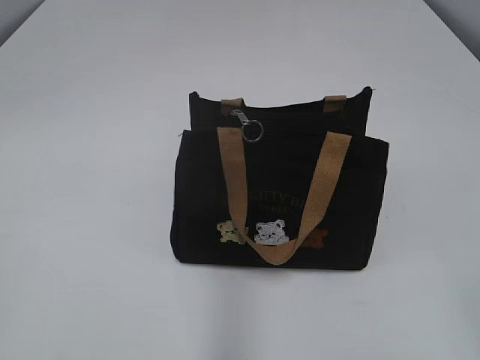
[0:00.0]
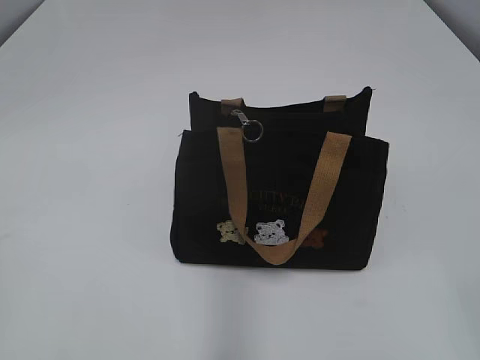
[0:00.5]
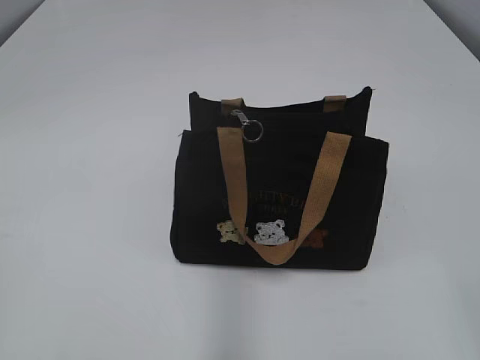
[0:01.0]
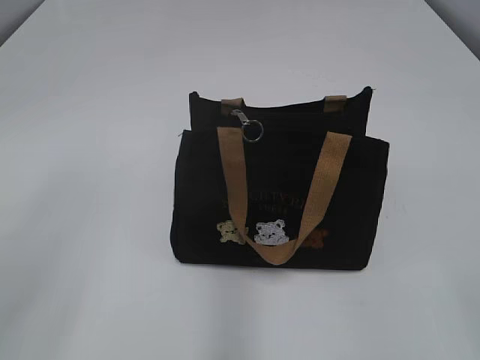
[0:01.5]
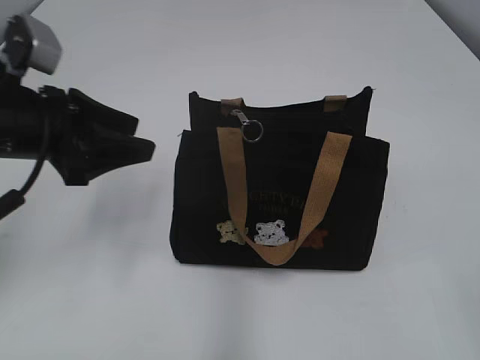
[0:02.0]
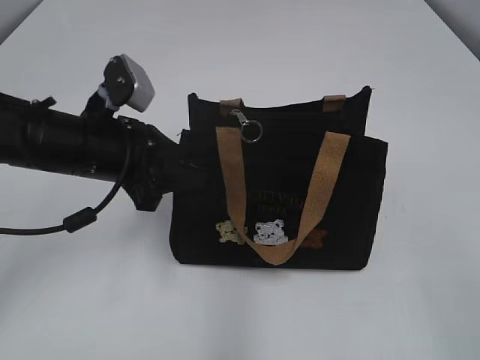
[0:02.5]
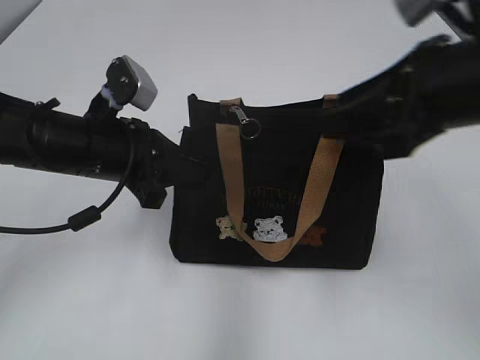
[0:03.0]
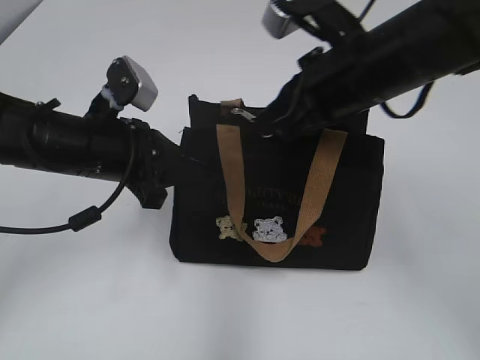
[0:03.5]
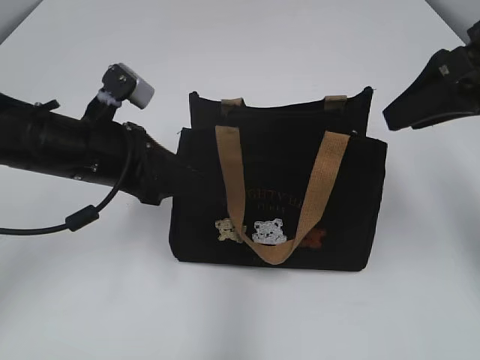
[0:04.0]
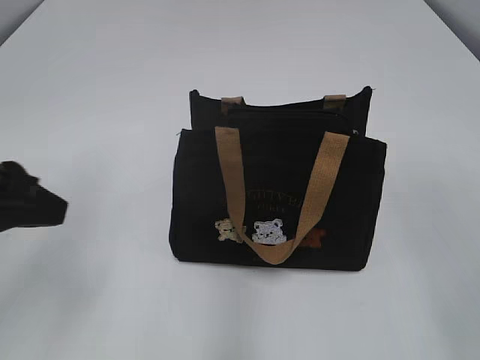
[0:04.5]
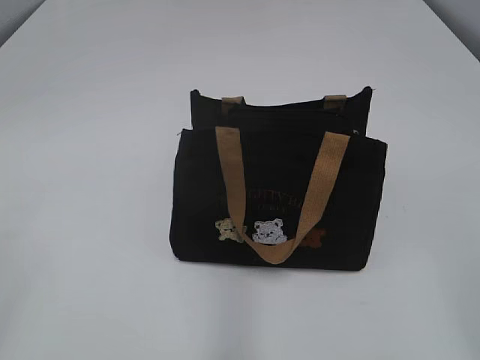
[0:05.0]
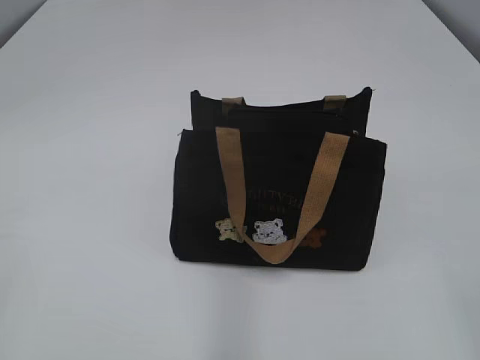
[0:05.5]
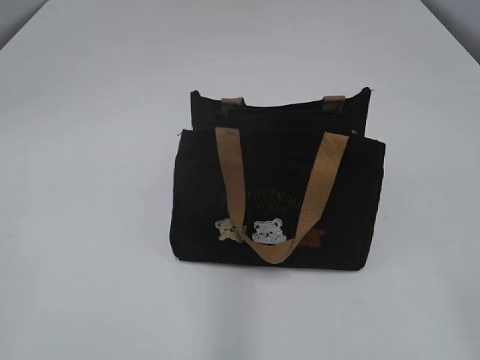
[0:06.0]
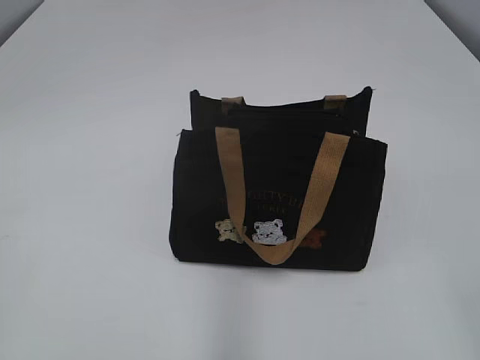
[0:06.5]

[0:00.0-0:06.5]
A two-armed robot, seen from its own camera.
Step, 0:00.0 to 0:03.5: Pull open the zipper with your right hand.
0:02.0 to 0:04.5: The right gripper travels forward by about 25 cm, and closes and opens again. Meanwhile the left gripper travels downward by roughly 5 cm, and closes up.
0:04.5 to 0:06.5: The left gripper is displaced backward and to the left by some 30 cm.

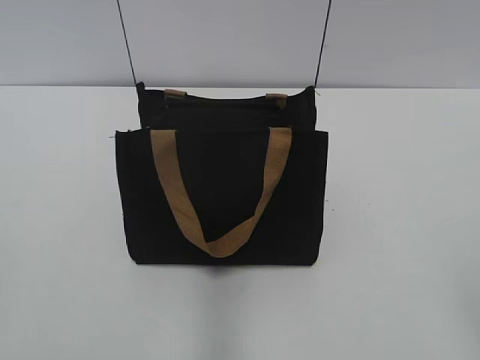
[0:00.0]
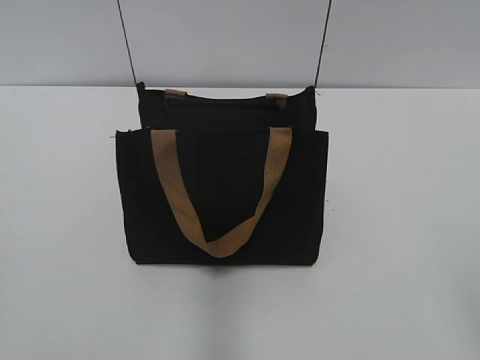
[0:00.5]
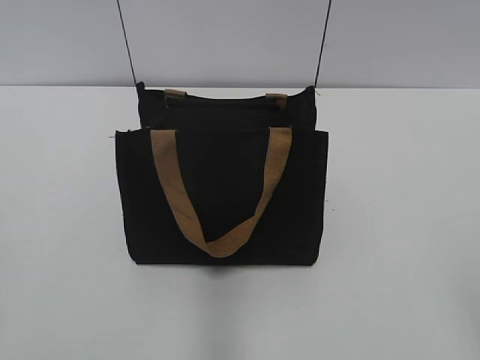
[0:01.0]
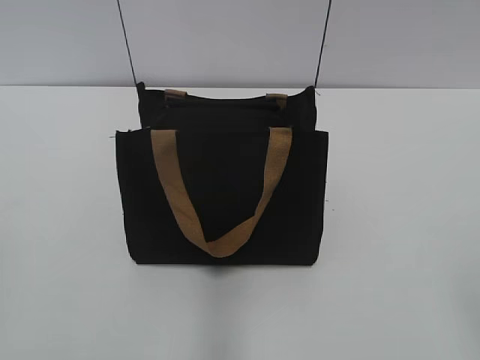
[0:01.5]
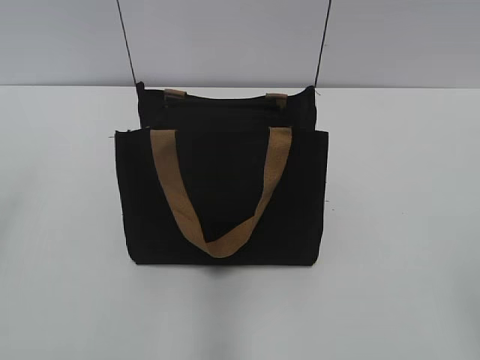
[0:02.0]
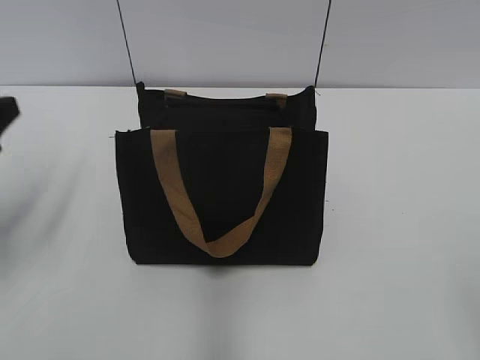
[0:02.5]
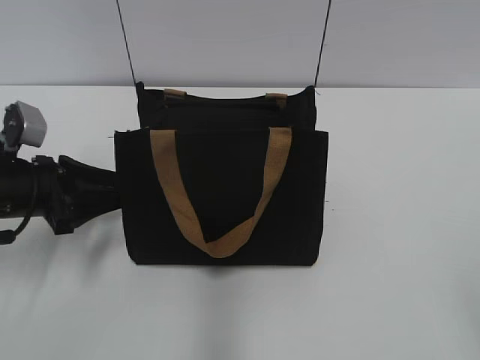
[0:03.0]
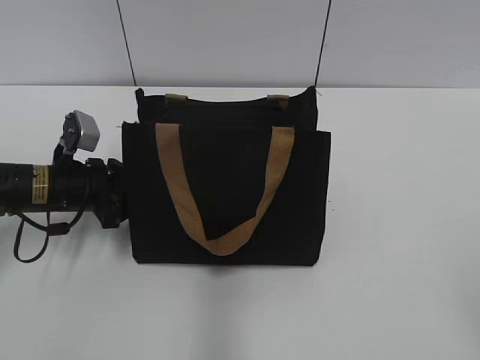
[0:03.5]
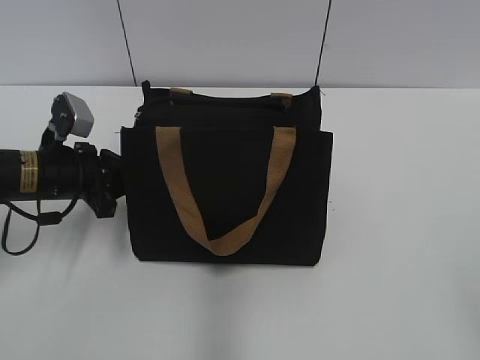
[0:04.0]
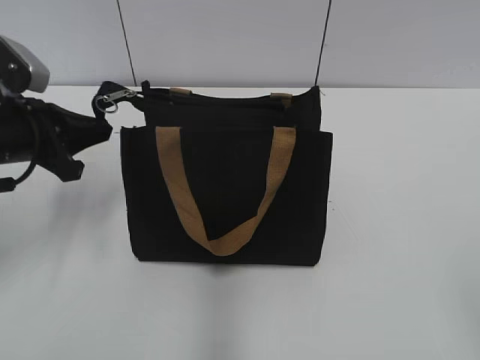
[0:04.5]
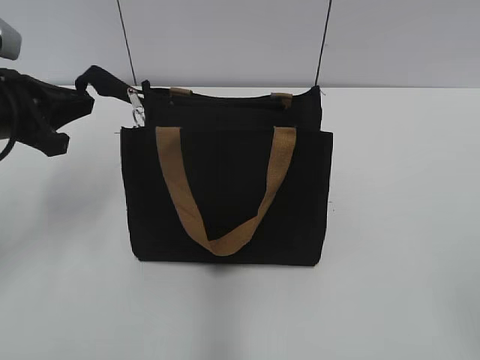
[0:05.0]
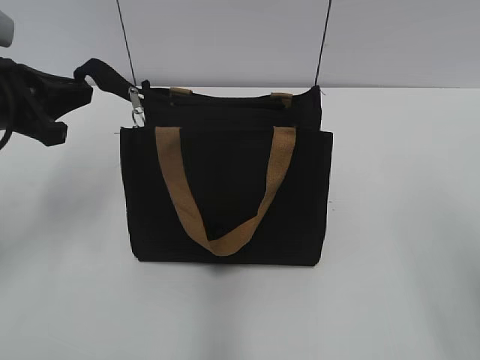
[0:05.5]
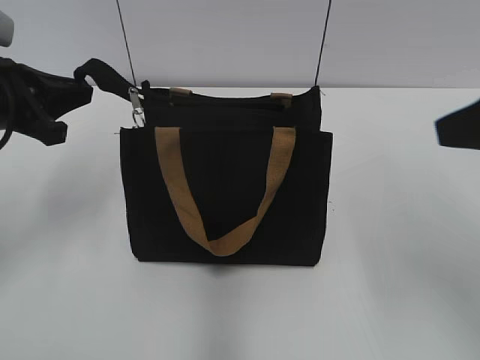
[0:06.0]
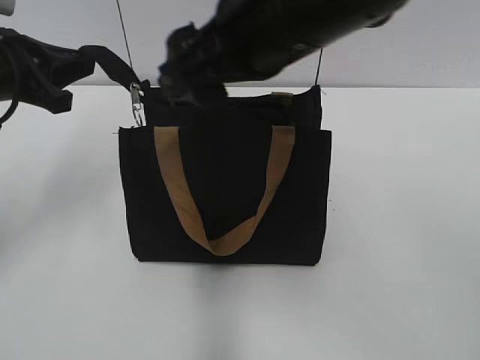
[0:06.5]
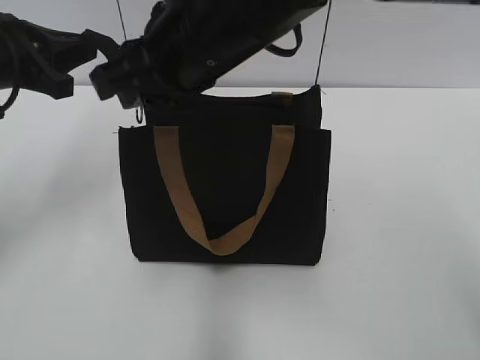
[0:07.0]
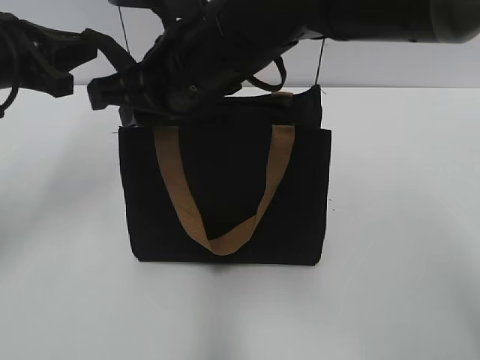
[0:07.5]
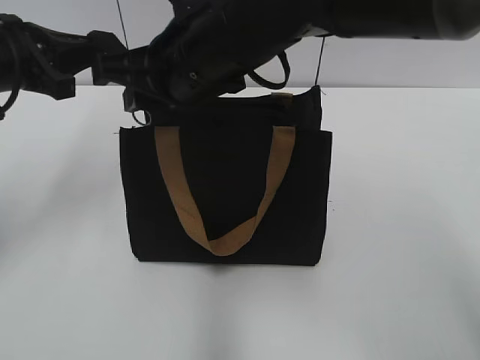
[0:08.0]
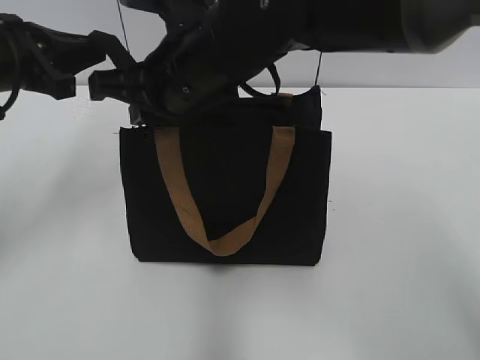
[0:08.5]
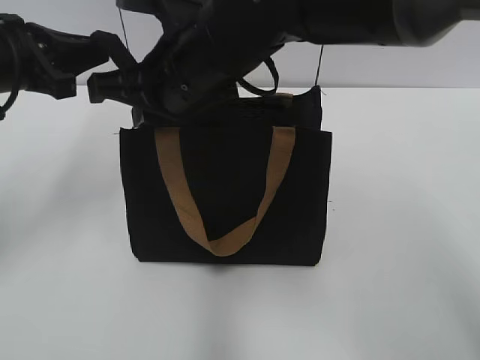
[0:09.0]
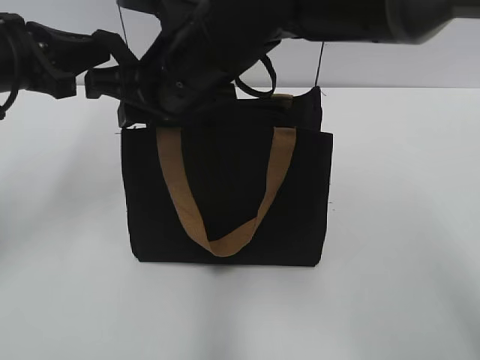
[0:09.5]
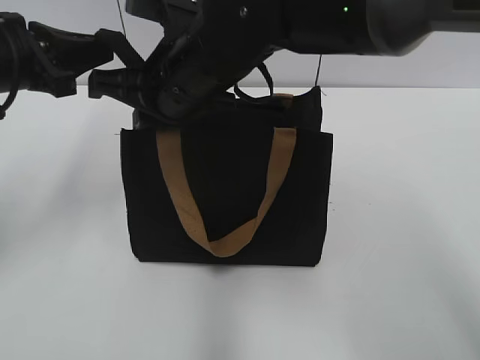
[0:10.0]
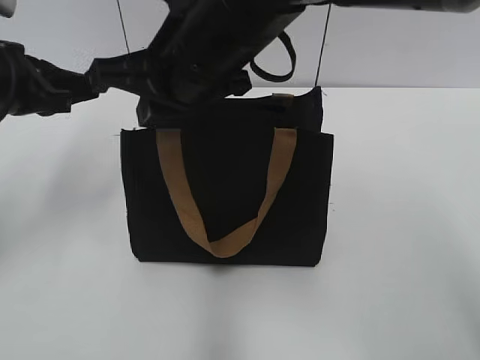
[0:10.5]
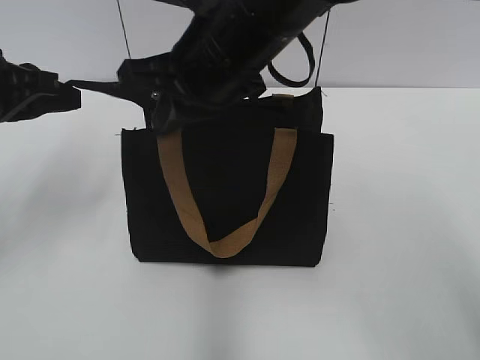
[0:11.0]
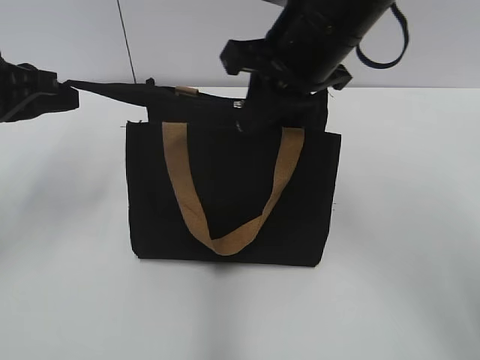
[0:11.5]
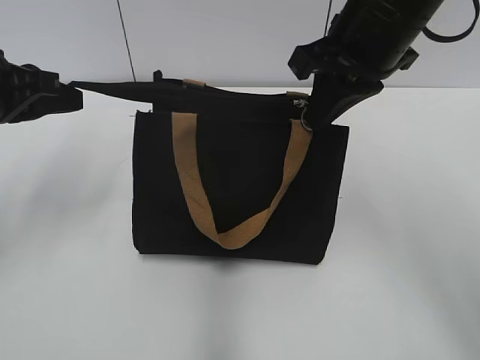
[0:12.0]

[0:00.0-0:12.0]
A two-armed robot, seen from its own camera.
0:02.0 to 0:04.0: The left gripper heads forward, downward and to the right, covering about 35 cm, and closes.
0:04.0 to 0:06.0: The left gripper heads upward, covering some 10 cm, while the right gripper is displaced forward by some 20 cm.
0:06.0 to 0:08.0: The right gripper travels to the left and forward by roughly 30 cm, and closes its fingers.
0:08.0 to 0:10.0: The right gripper closes.
0:10.0 to 0:12.0: The right gripper shifts about 15 cm to the right.

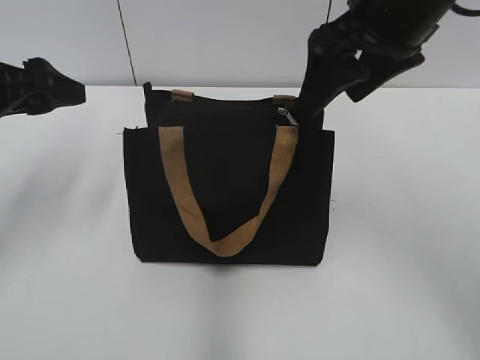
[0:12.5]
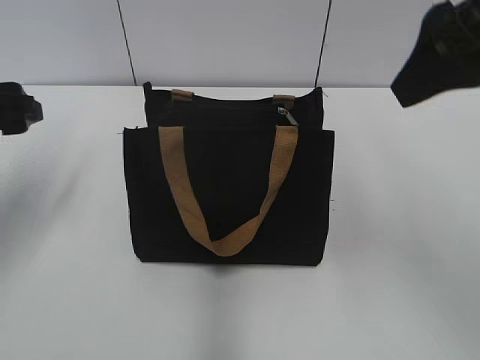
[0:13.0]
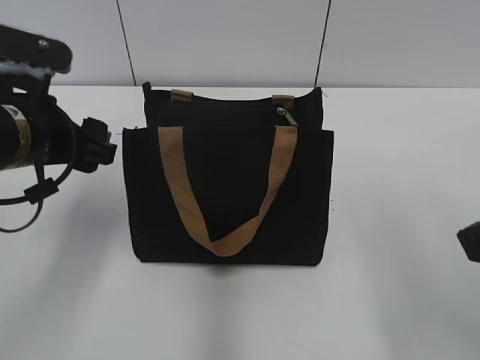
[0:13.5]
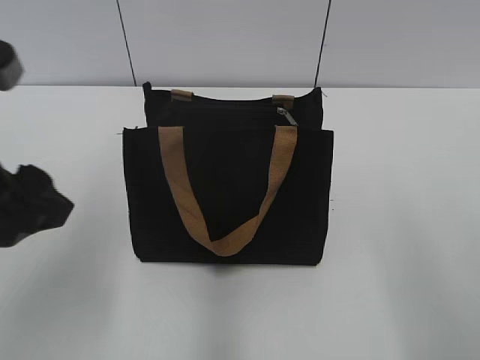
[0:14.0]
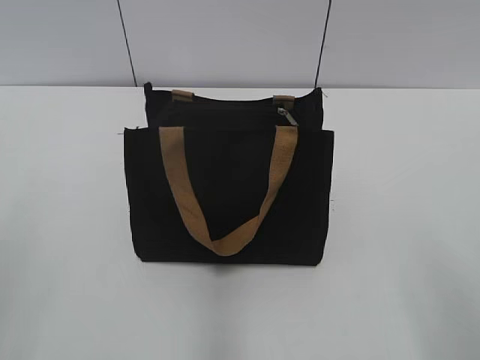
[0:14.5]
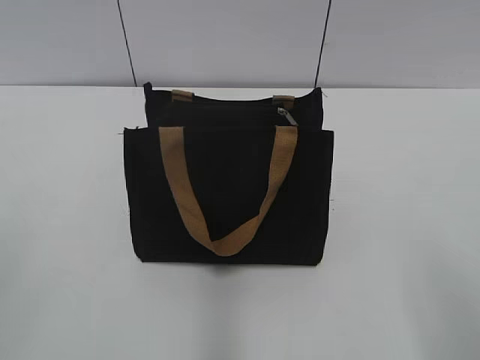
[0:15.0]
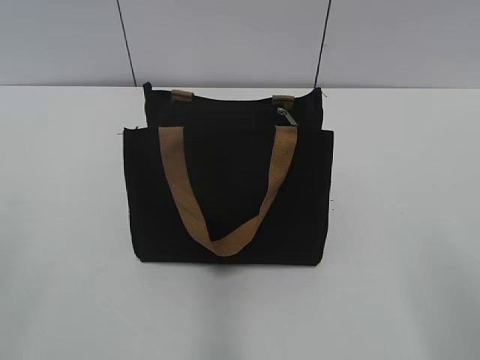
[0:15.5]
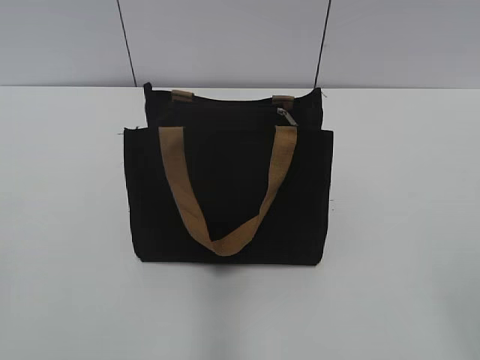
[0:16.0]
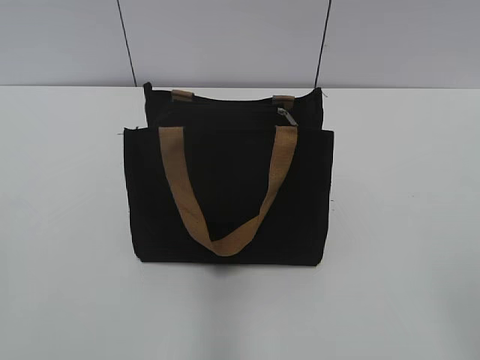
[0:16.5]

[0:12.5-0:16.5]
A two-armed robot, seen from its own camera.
0:12.5 to 0:14.5: The left gripper moves backward, some 25 cm. Meanwhile the right gripper travels backward and to the right by approximately 30 cm.

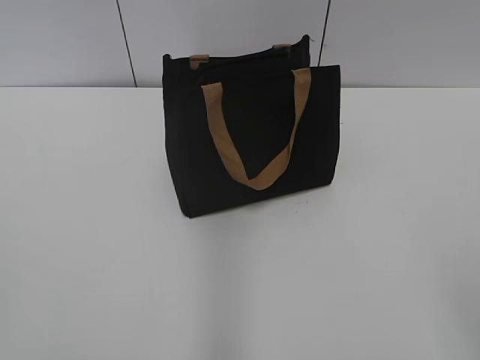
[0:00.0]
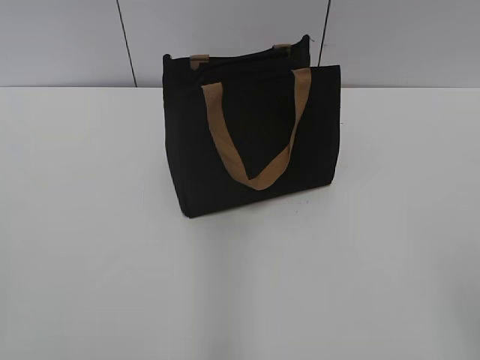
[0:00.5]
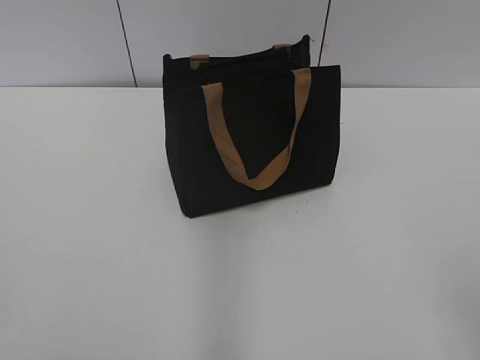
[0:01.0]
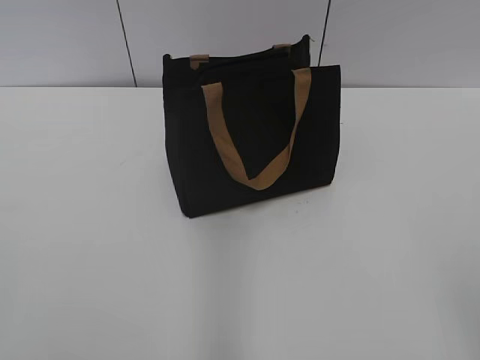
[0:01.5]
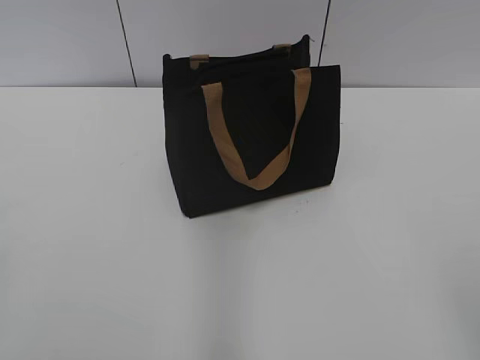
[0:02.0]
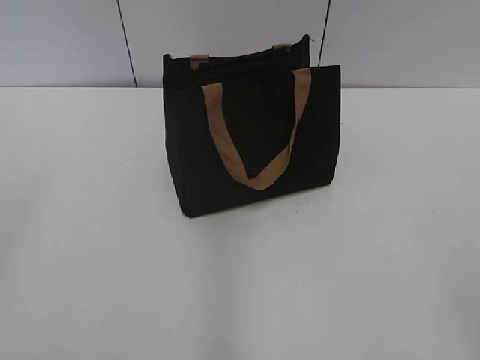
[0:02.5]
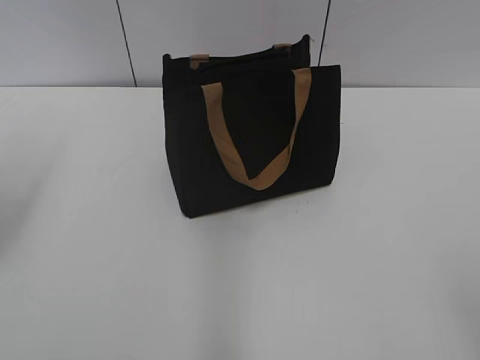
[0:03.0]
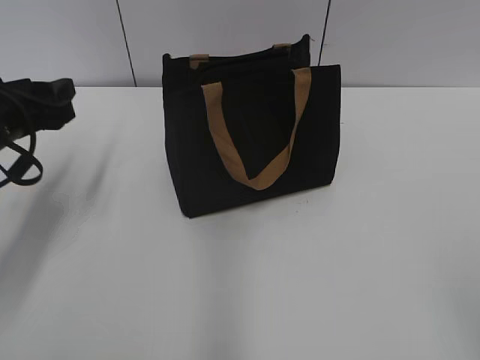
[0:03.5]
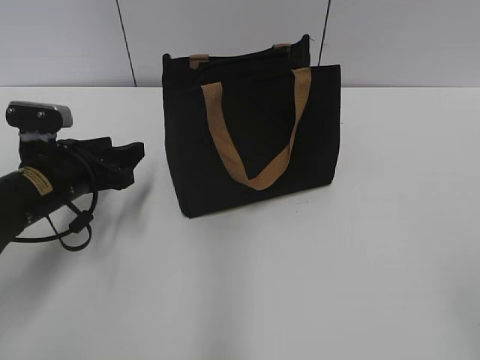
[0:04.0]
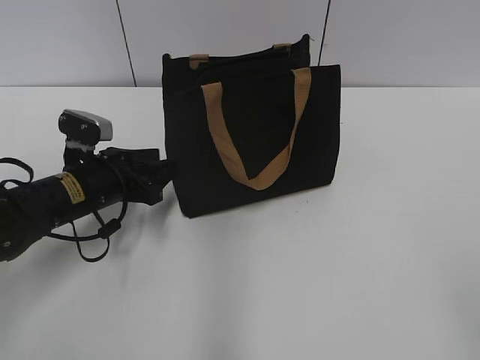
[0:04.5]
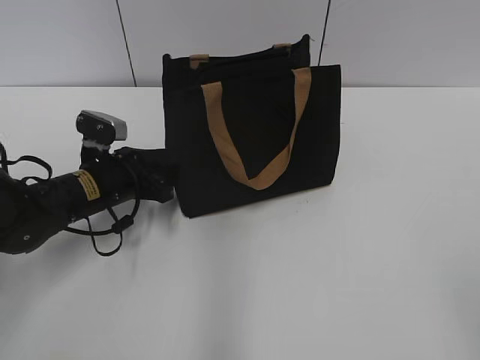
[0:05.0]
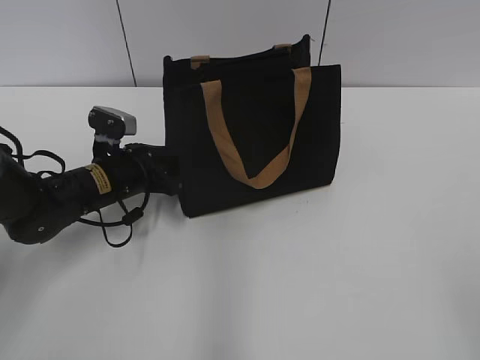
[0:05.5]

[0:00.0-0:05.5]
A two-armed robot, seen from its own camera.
0:02.0 to 0:03.5: The left gripper travels forward by approximately 30 cm.
0:03.5 to 0:05.5: The left gripper heads downward, to the right and forward, covering roughly 15 cm, and closes its fingers.
